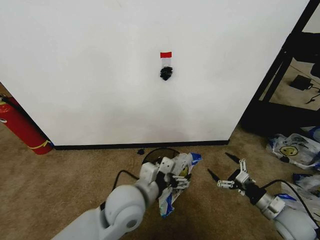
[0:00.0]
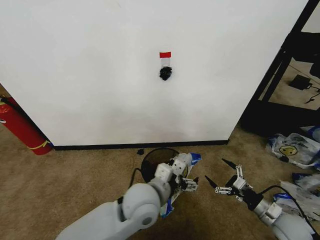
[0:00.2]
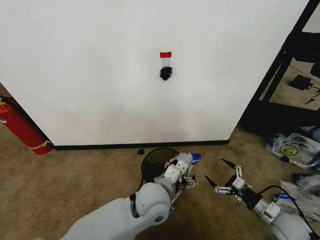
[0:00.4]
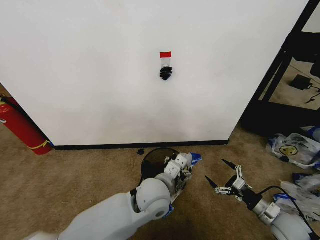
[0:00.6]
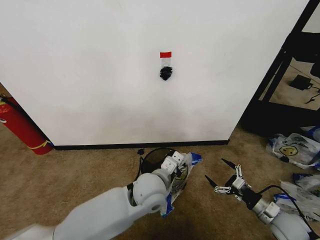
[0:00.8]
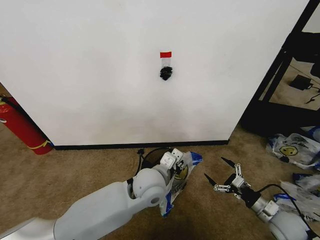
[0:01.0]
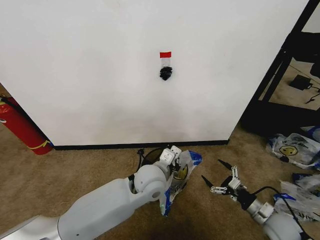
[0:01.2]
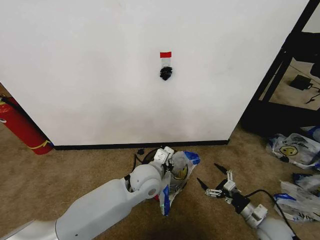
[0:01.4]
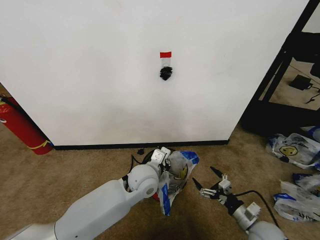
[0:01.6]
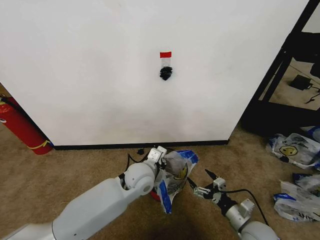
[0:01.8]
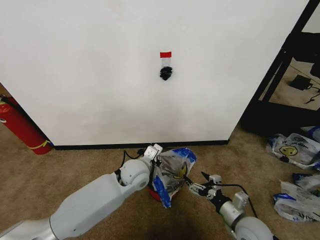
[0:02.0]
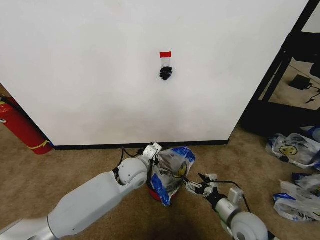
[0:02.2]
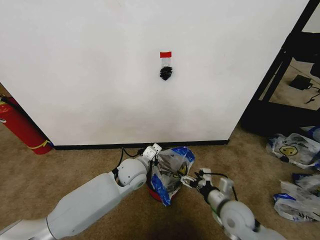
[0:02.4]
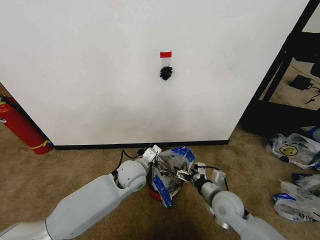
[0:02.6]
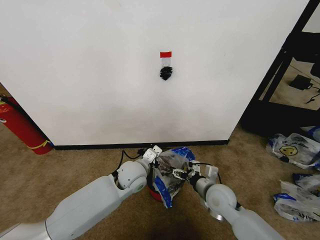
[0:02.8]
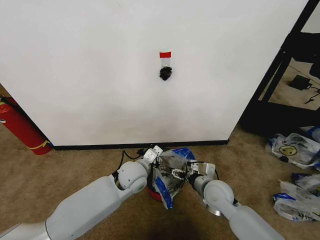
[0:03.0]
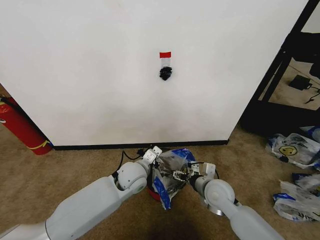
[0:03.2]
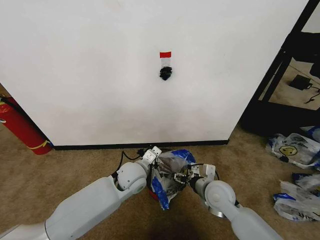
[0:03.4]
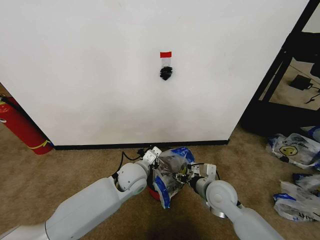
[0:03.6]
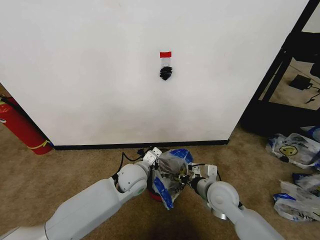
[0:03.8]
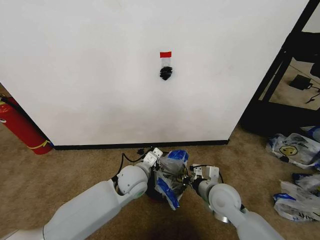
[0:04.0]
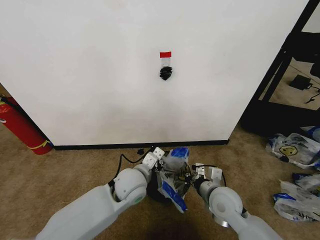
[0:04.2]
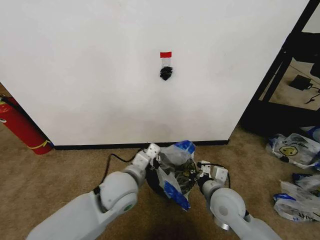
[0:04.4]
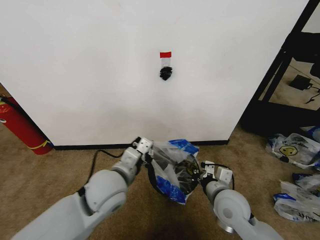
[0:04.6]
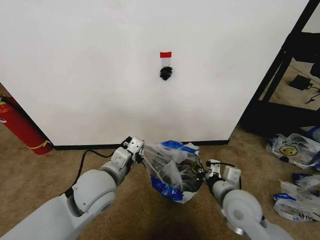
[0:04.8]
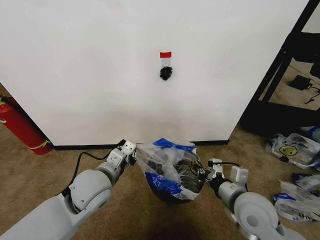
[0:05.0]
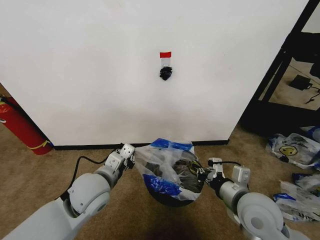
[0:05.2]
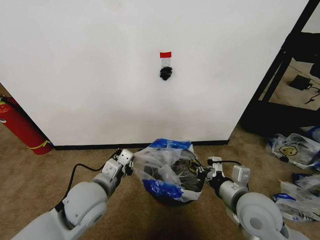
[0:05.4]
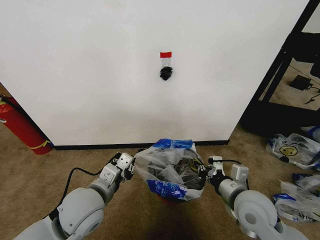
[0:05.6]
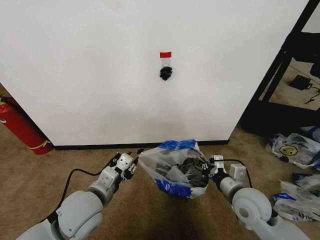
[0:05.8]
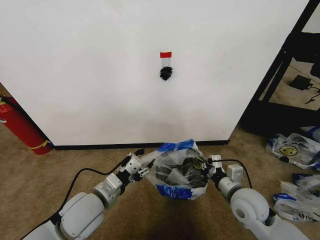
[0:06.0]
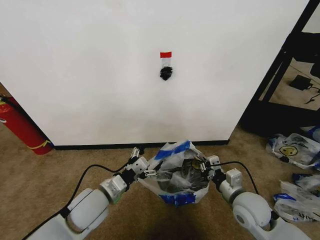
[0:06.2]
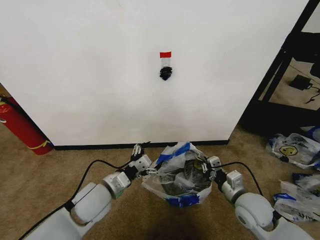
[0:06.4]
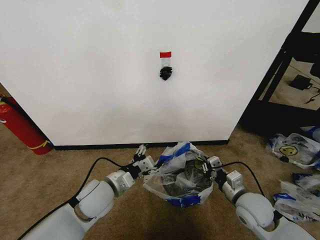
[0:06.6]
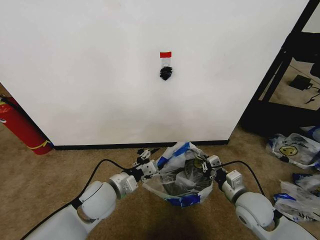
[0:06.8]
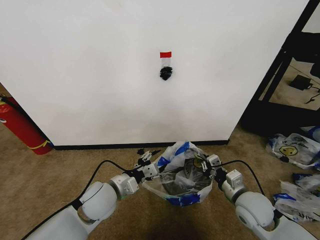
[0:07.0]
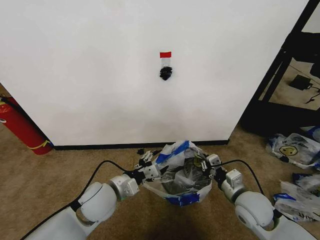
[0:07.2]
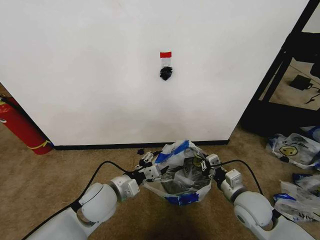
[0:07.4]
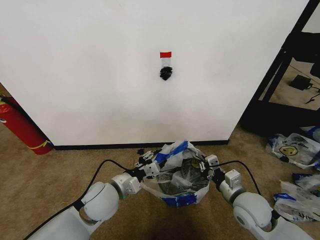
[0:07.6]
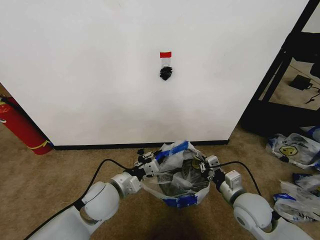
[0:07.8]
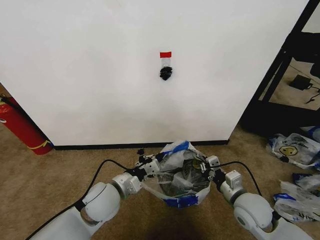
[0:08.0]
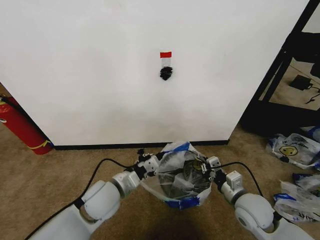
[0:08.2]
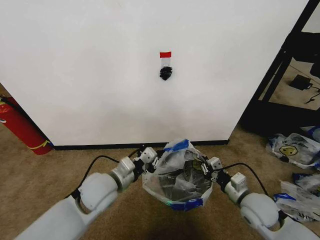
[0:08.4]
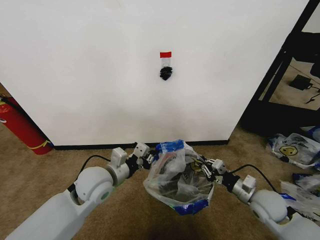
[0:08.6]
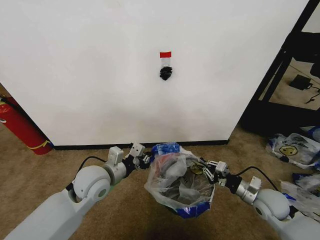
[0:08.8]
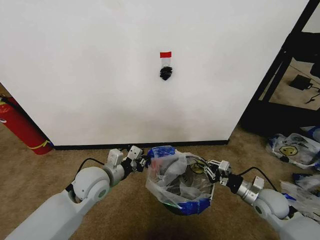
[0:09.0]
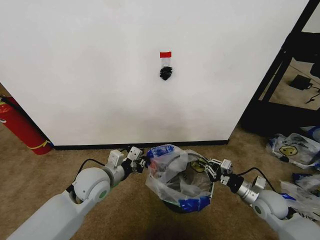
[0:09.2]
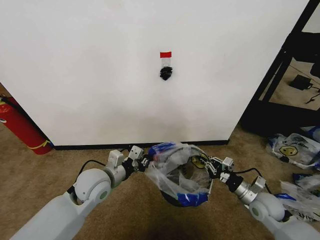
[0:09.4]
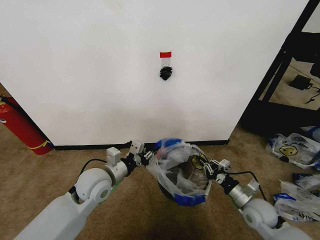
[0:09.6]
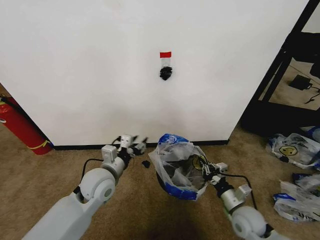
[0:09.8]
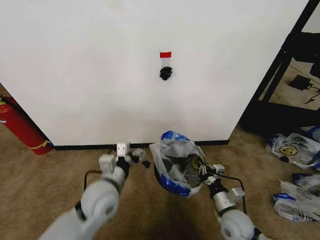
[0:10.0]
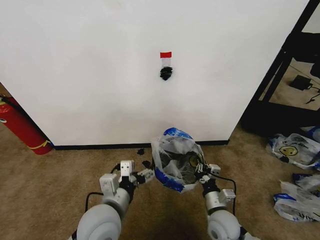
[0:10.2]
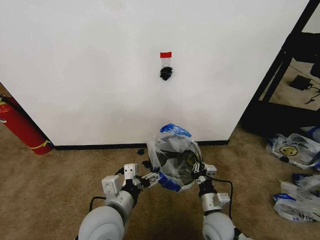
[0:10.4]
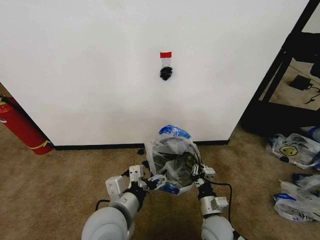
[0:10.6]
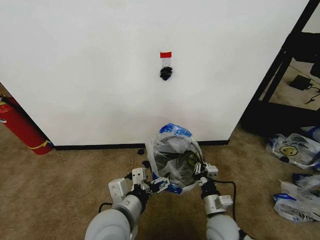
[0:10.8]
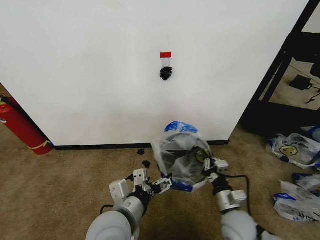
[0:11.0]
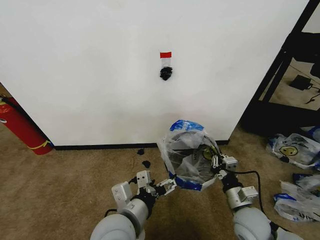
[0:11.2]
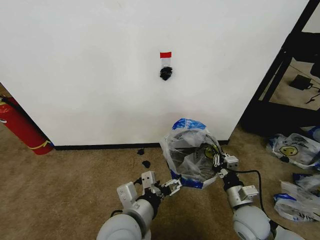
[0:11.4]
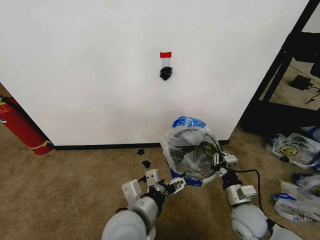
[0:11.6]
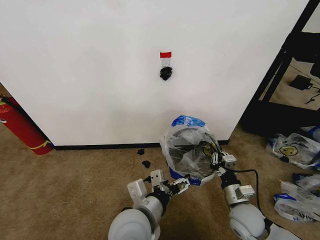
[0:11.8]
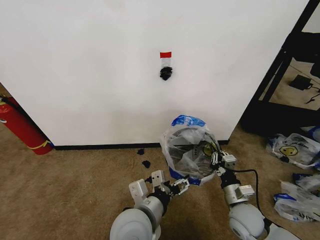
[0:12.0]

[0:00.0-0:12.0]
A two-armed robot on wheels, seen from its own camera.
Task of the whole recording: Pick up the garbage bag from the wall and place it over the trash bin.
0:00.0 to 0:01.6: The left gripper is displaced forward and downward by some 10 cm, and closes, while the right gripper travels to the left and downward by some 10 cm.
0:01.6 to 0:03.0: The right gripper is displaced to the left, forward and upward by roughly 20 cm.
0:03.0 to 0:04.4: The right gripper ends up approximately 5 cm from where it was, and closes its fingers. The left gripper moves backward and upward, approximately 10 cm.
0:04.4 to 0:06.0: The right gripper travels to the right by approximately 5 cm, while the left gripper travels to the left by roughly 10 cm, and opens its fingers.
0:06.0 to 0:07.6: The left gripper changes place by roughly 5 cm, and opens, then closes once more.
0:07.6 to 0:09.0: The left gripper ends up about 5 cm from where it was, and closes, while the right gripper goes approximately 10 cm to the right and downward.
0:09.0 to 0:10.4: The right gripper moves to the left, roughly 20 cm. The left gripper moves backward and to the right, roughly 15 cm, and opens.
0:10.4 to 0:12.0: The grippers both shift to the right by some 5 cm.

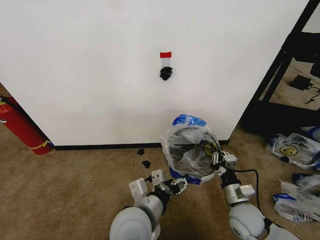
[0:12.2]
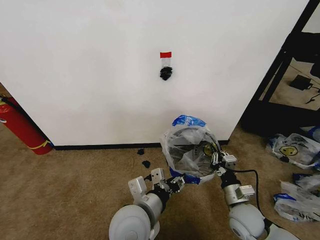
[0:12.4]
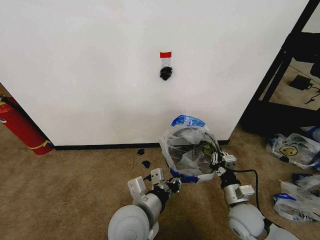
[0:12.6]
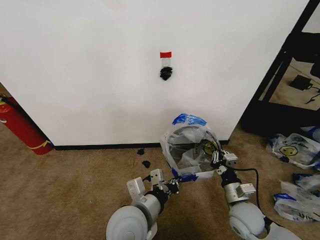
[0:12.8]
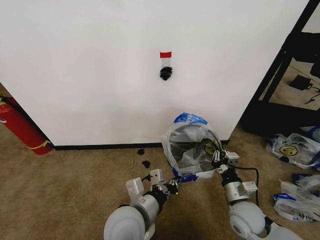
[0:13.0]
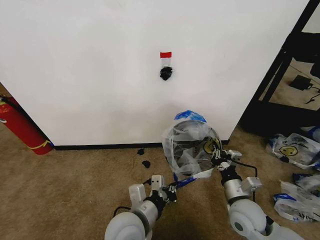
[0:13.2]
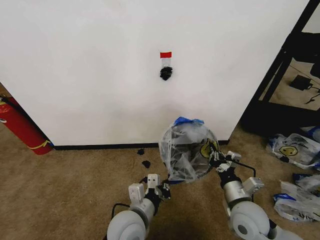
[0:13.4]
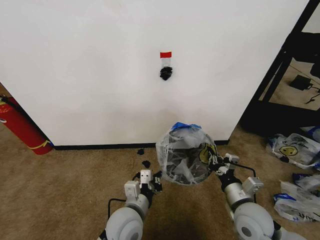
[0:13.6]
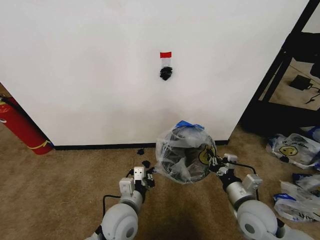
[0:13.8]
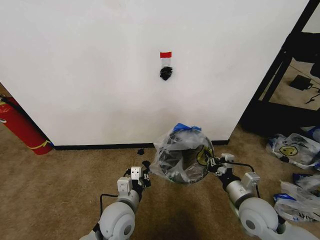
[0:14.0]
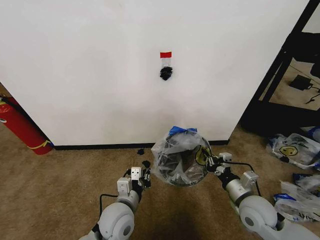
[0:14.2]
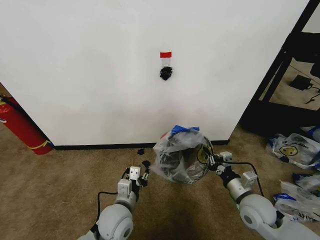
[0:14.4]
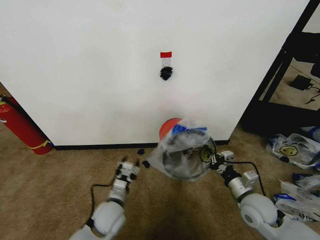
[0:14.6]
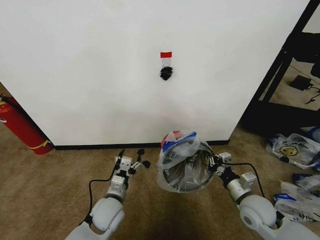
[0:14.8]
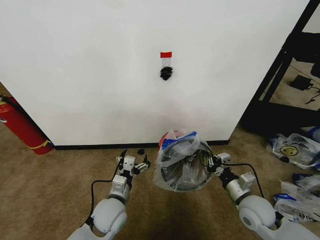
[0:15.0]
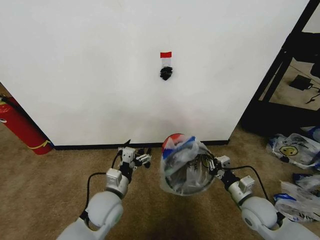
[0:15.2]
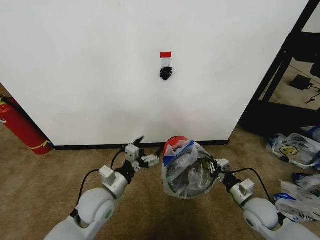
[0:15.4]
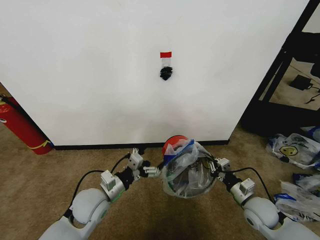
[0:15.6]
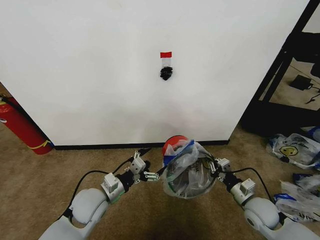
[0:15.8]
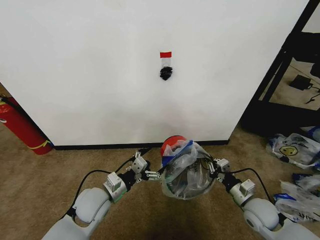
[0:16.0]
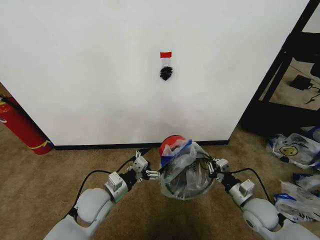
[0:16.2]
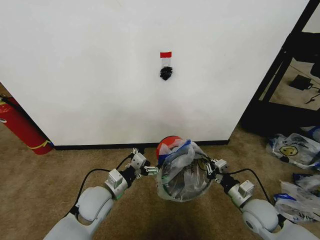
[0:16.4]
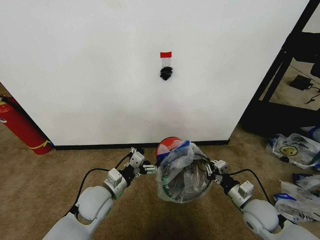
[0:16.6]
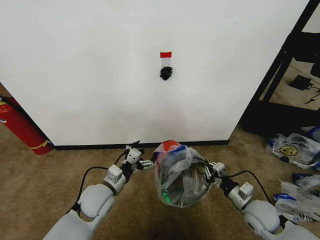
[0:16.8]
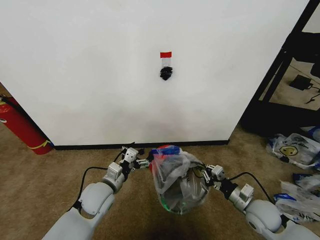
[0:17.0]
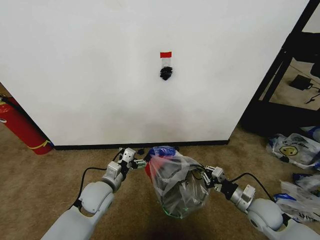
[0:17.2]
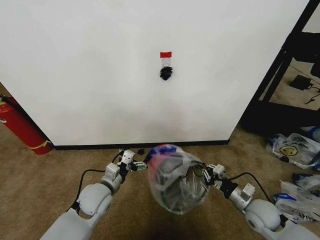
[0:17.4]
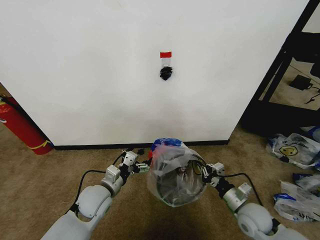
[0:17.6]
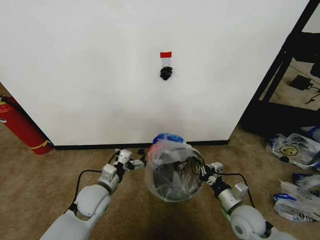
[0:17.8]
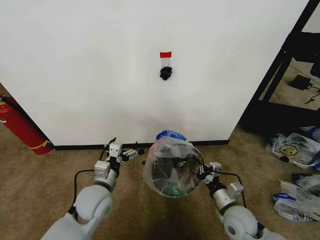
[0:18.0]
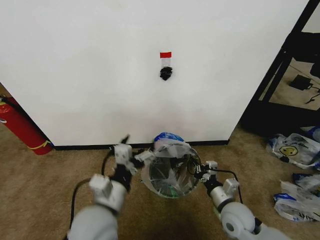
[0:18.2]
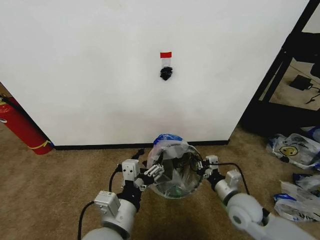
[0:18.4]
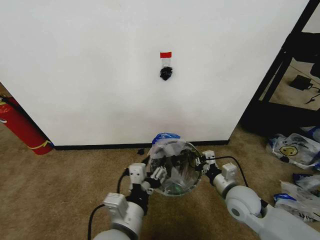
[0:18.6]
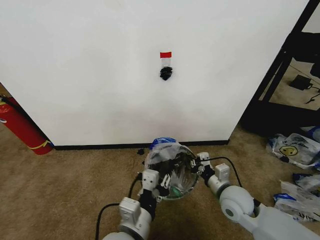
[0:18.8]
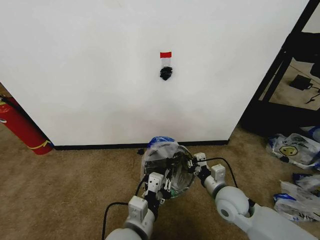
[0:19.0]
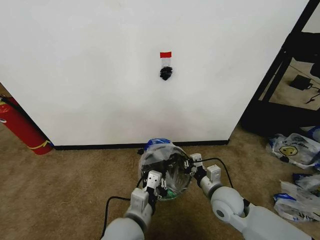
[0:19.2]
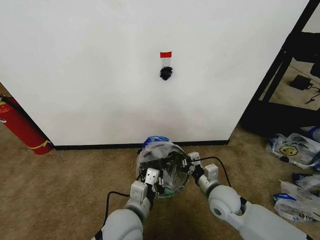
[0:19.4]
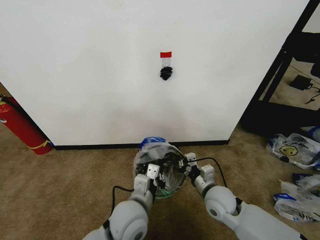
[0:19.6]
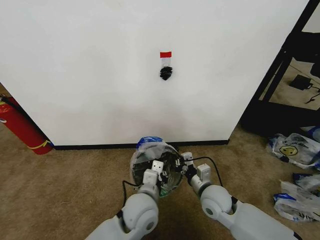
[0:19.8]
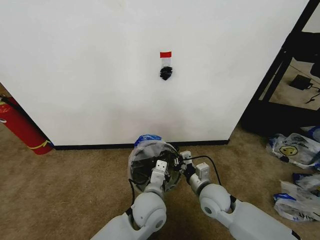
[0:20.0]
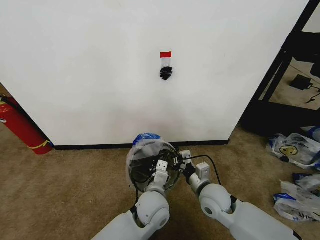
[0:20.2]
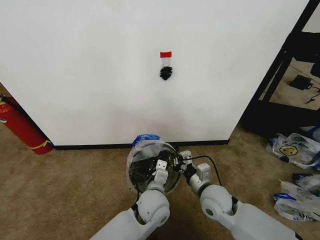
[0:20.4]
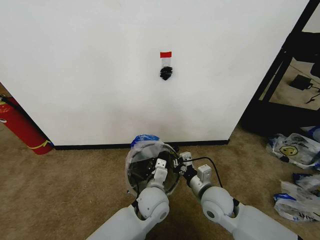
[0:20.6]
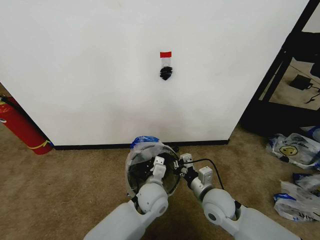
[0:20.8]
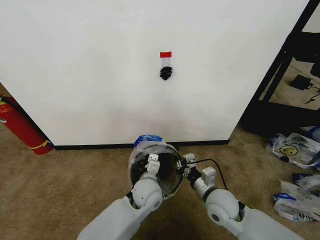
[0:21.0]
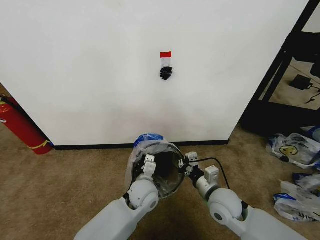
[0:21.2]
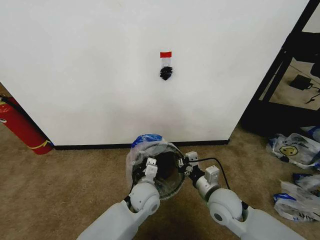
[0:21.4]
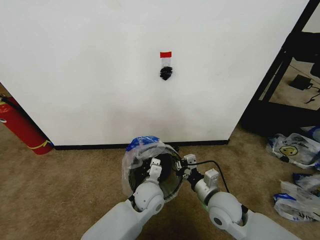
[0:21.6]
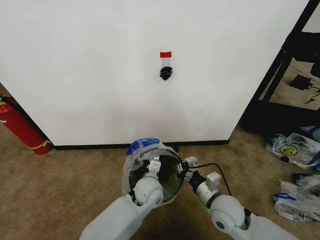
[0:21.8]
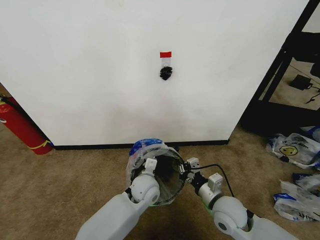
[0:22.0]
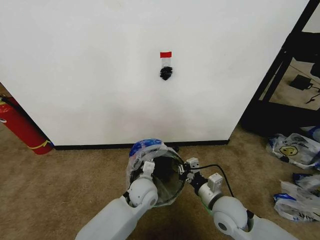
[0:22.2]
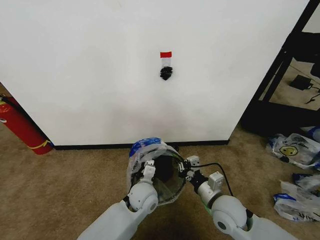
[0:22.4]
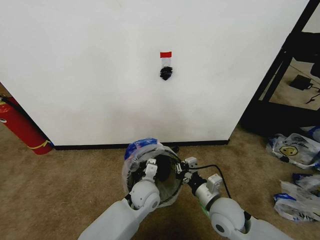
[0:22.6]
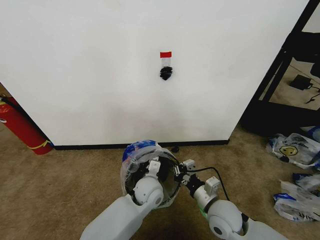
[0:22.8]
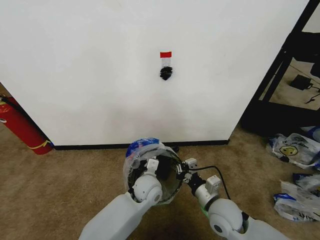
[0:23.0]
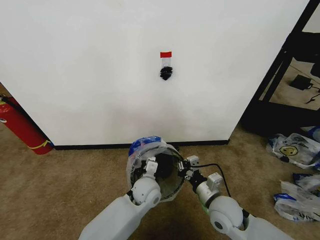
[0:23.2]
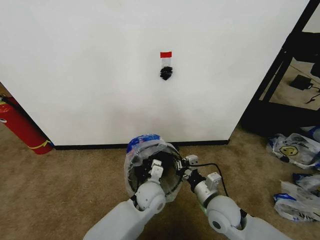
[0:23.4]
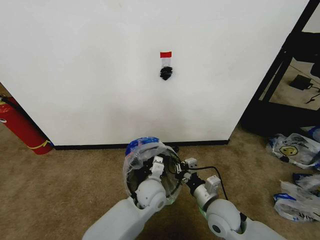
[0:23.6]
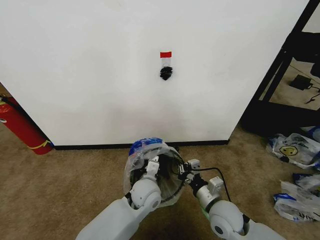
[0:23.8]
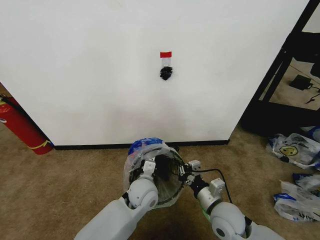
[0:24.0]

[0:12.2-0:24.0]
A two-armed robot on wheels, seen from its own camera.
Task of the whole recording: Pick up the garbage bag from the wall and place it over the trash bin.
0:12.2 to 0:13.6: The left gripper travels downward by roughly 5 cm, and closes up; the right gripper travels upward by some 5 cm.
0:13.6 to 0:15.2: The left gripper goes roughly 5 cm to the left, reaches about 10 cm downward, then returns, and opens its fingers, while the right gripper heads to the right and downward, covering approximately 10 cm.
0:16.6 to 0:18.2: The right gripper moves to the left, roughly 10 cm; the left gripper heads backward, upward and to the right, covering roughly 15 cm.
0:18.2 to 0:19.6: The left gripper moves downward and to the right, about 10 cm, and closes its fingers. Meanwhile the right gripper heads to the left, covering roughly 5 cm.
0:19.6 to 0:21.0: The left gripper moves forward and downward, approximately 10 cm.
0:21.0 to 0:24.0: The grippers move only a little.
